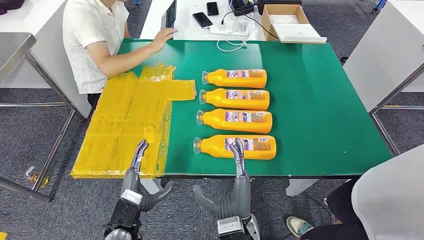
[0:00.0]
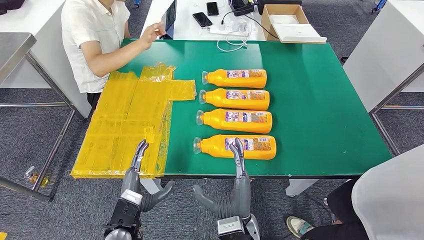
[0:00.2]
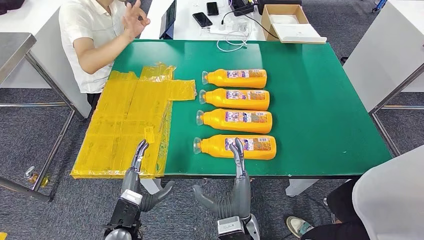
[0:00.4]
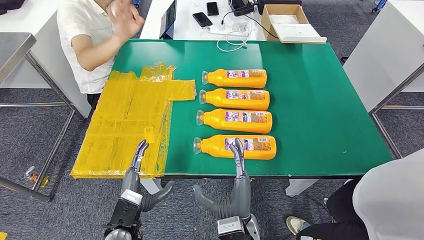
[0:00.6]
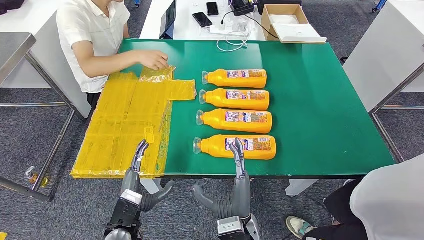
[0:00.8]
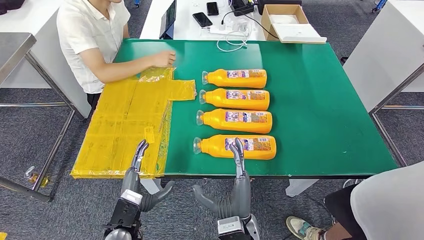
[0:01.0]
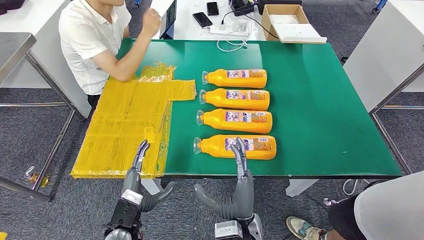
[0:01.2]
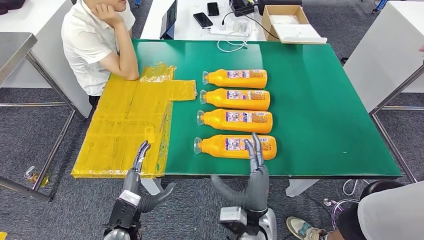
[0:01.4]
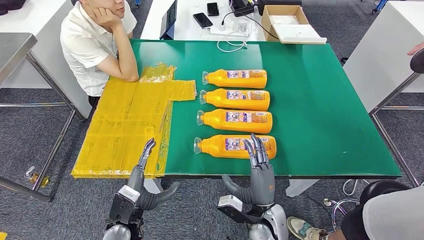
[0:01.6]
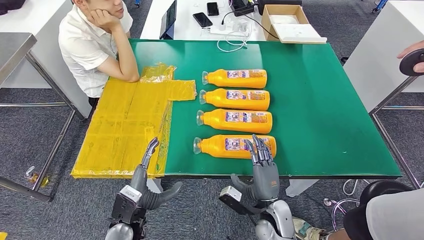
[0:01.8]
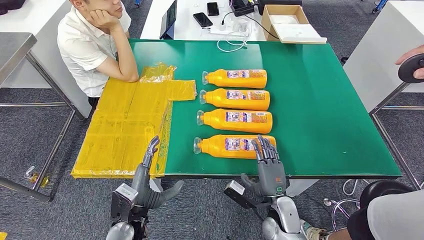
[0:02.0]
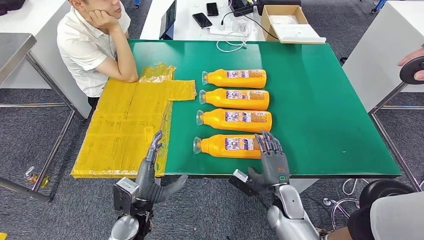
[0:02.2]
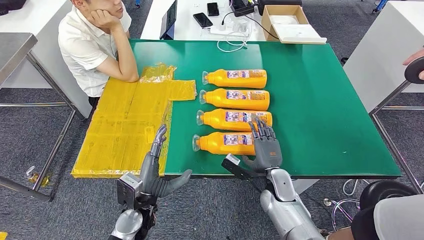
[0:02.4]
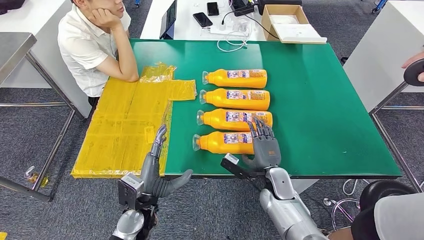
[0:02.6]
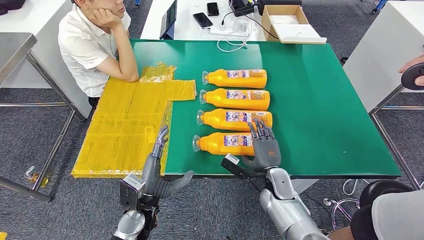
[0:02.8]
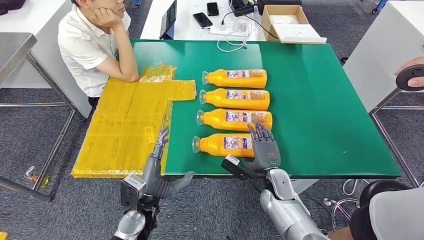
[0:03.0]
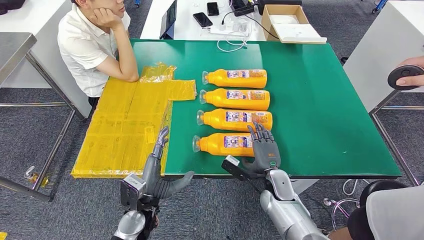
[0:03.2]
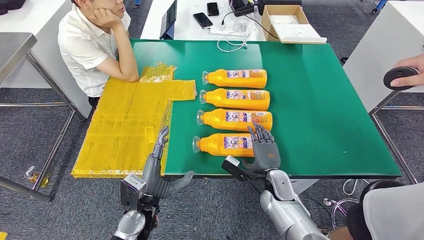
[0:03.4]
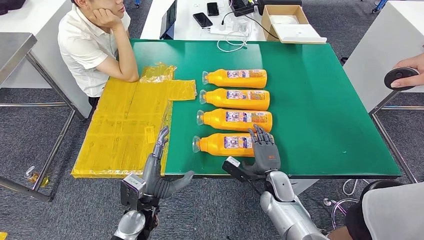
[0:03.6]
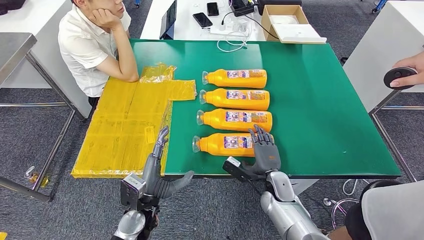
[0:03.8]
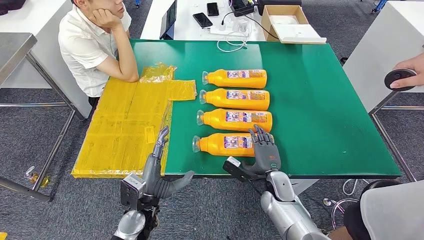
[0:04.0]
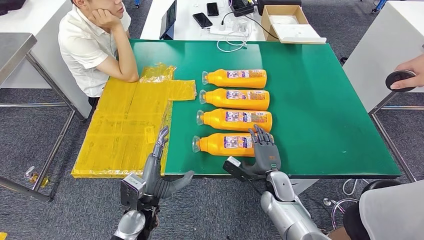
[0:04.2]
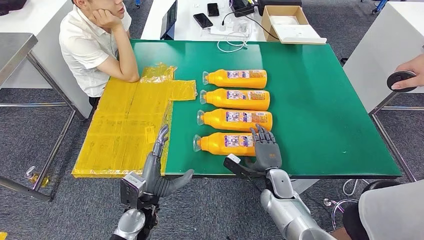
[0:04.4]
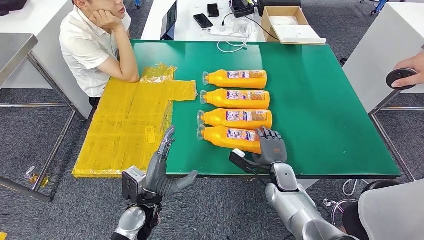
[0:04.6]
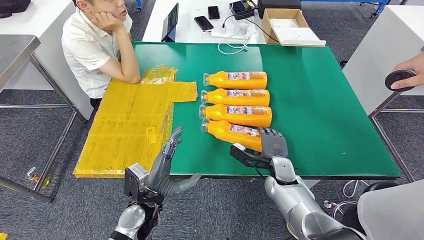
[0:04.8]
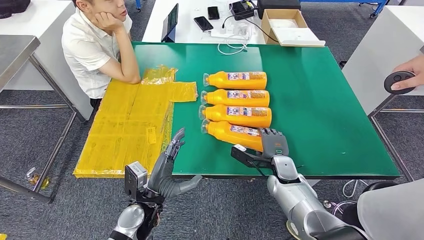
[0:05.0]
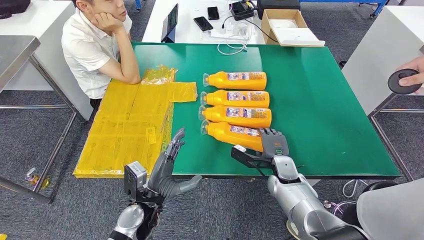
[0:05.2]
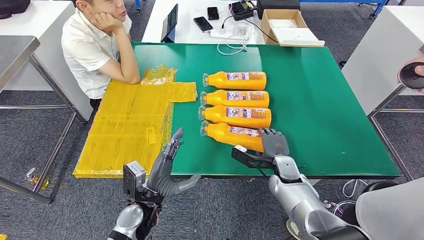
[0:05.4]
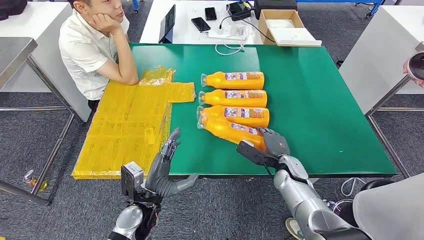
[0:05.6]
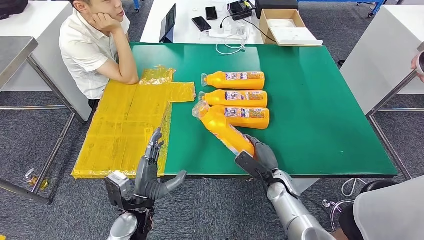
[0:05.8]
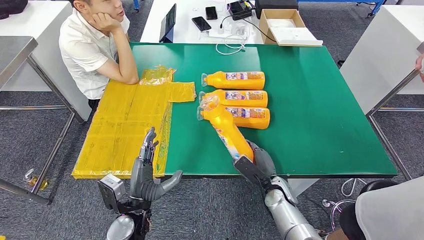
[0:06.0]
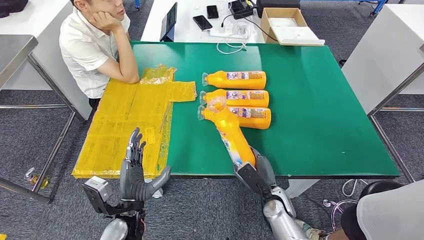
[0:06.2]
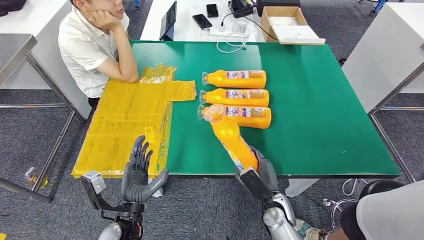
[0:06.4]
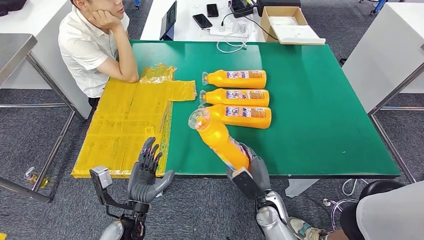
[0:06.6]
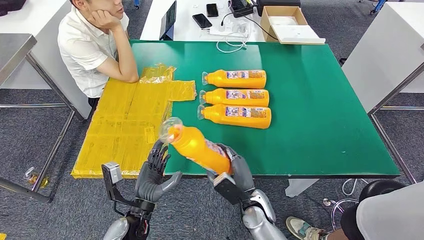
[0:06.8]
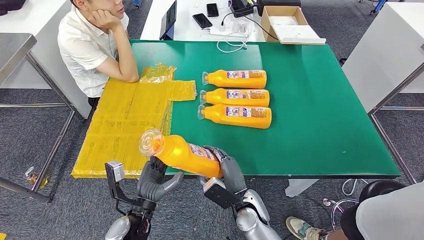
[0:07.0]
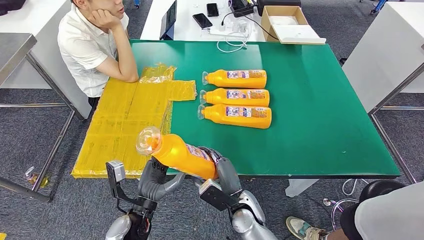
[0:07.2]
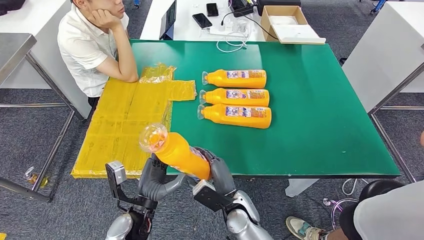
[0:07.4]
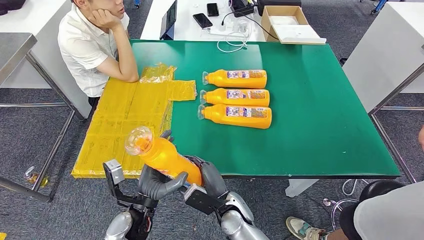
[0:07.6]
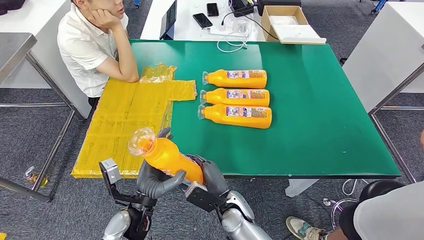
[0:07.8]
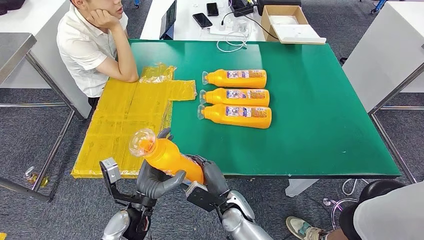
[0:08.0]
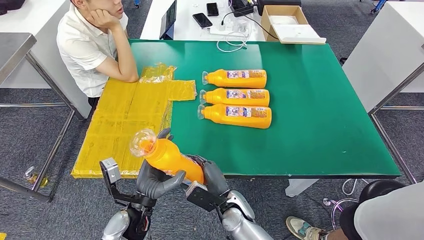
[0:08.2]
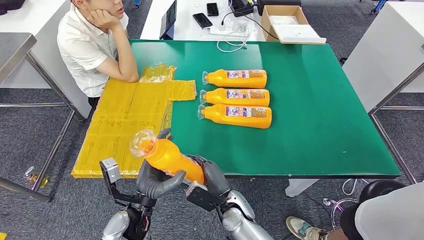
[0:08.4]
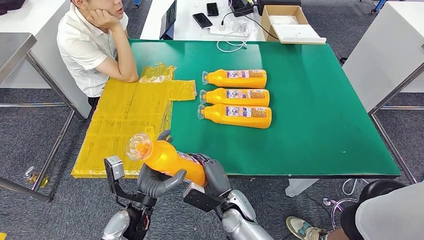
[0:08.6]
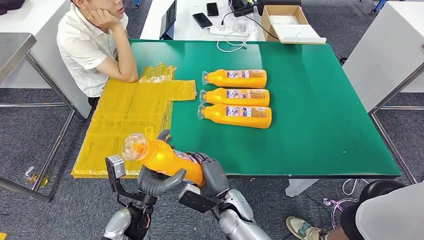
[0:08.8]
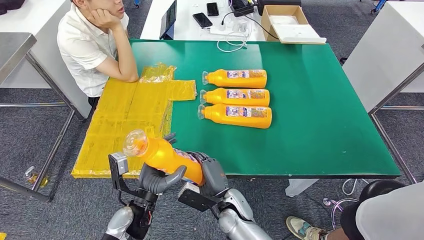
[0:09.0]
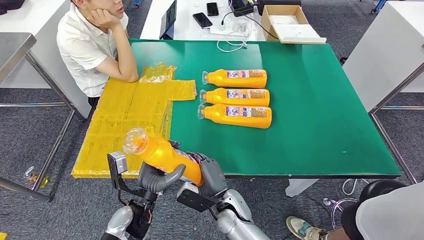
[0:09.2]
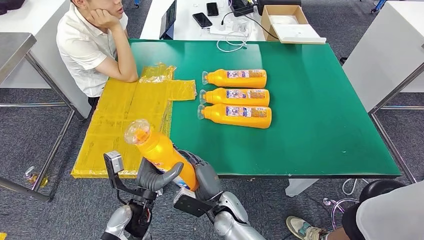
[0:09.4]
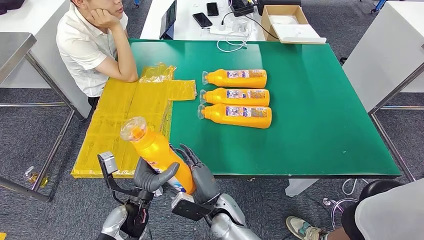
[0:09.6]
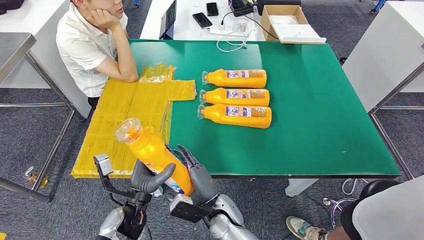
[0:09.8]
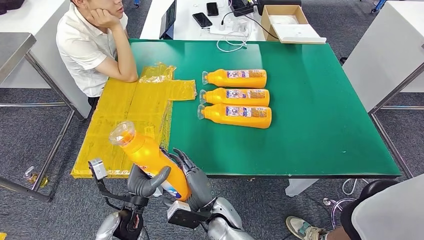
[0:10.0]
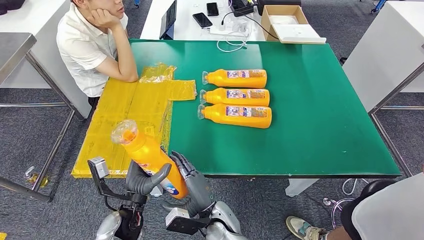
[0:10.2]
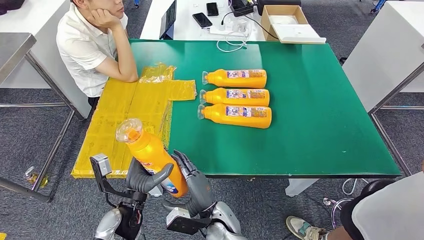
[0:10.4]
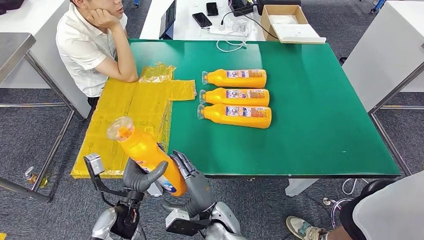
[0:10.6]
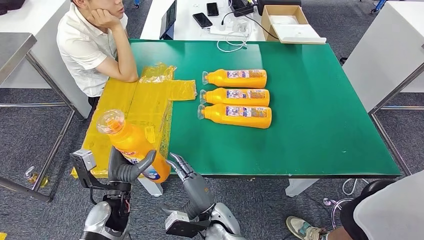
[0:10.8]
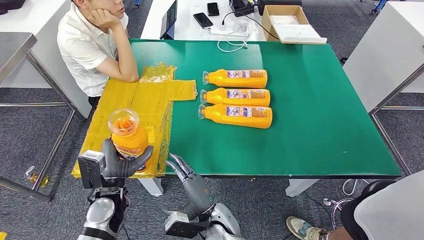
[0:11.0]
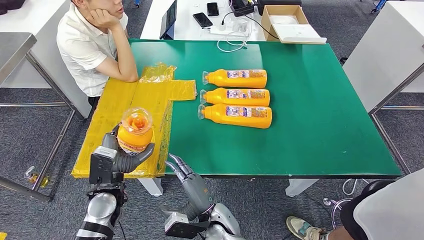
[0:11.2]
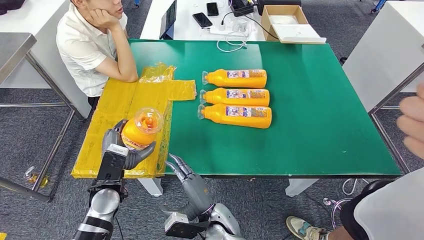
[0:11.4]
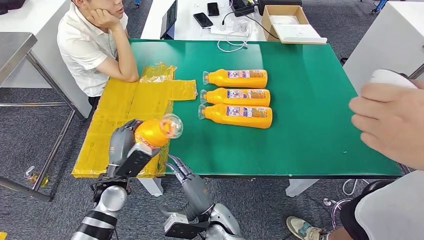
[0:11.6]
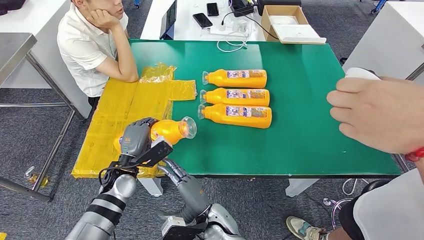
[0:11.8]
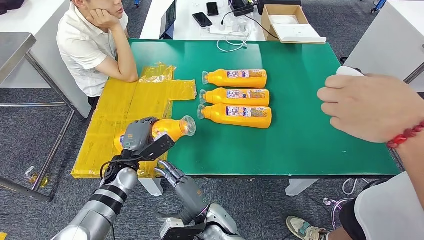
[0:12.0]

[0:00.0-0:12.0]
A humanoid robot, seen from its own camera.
Step, 0:00.0 to 0:06.4: Take the bottle from the table.
0:01.6 to 0:03.0: The right hand travels forward and to the right by approximately 10 cm.
0:03.0 to 0:04.4: The hands move only a little.
0:07.6 to 0:09.0: The hands make only small movements.
0:09.0 to 0:10.4: The right hand ends up about 5 cm from where it was.
0:10.4 to 0:12.0: The left hand is displaced forward by some 10 cm.

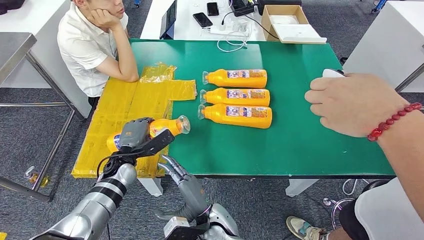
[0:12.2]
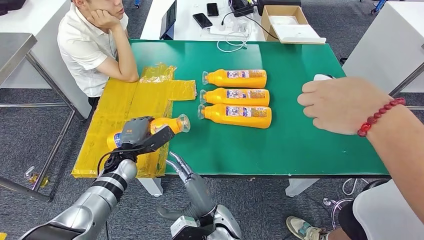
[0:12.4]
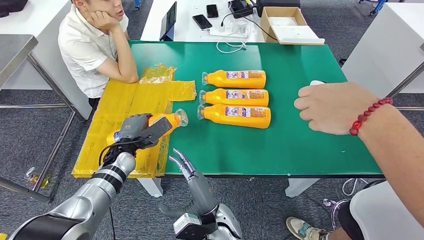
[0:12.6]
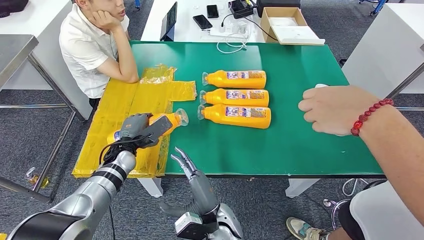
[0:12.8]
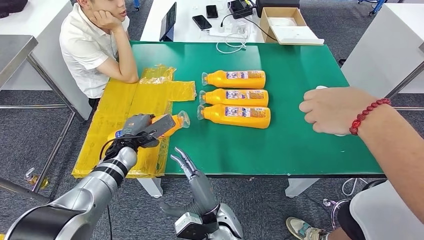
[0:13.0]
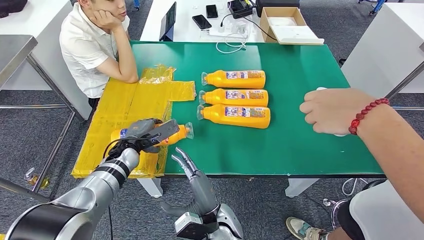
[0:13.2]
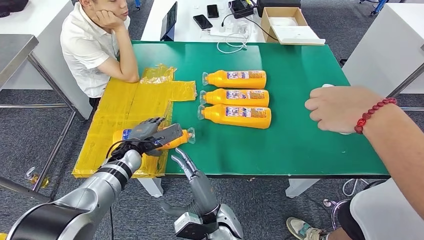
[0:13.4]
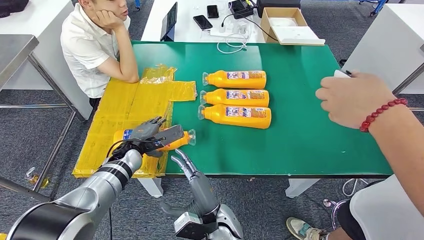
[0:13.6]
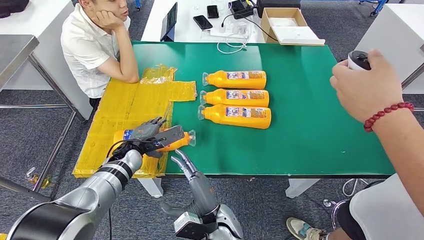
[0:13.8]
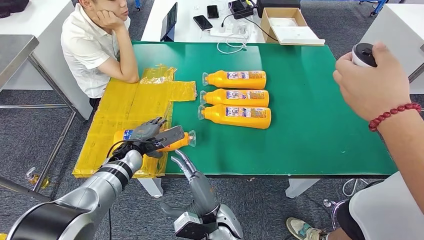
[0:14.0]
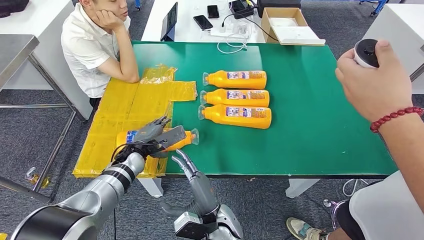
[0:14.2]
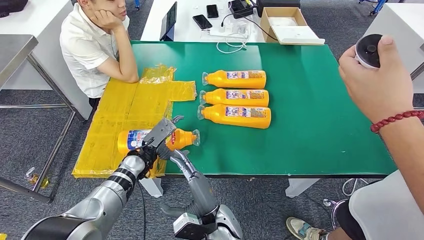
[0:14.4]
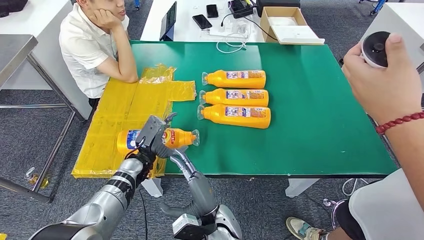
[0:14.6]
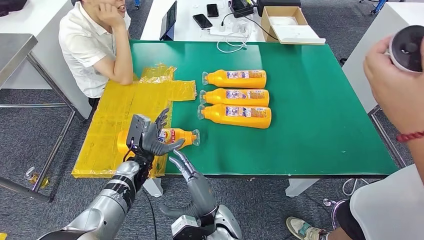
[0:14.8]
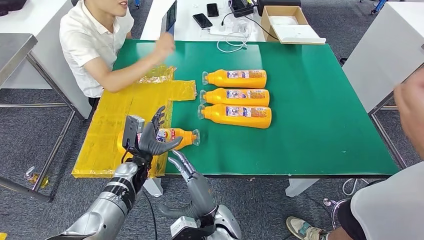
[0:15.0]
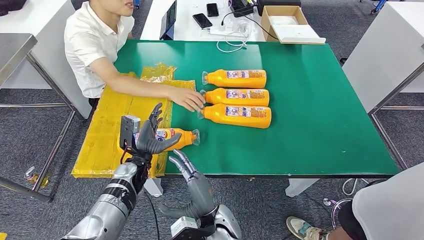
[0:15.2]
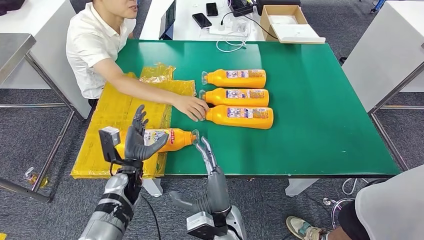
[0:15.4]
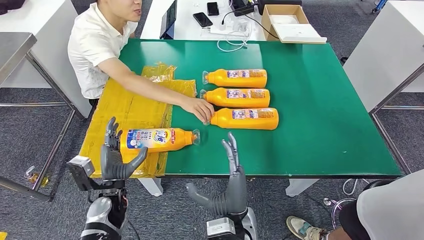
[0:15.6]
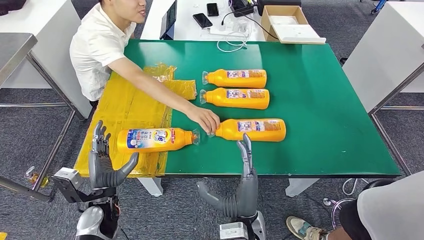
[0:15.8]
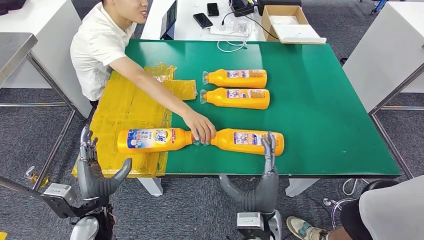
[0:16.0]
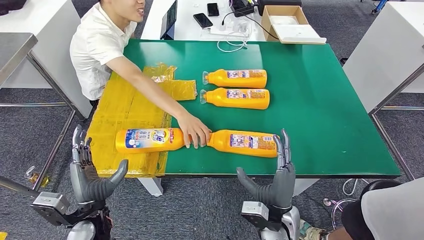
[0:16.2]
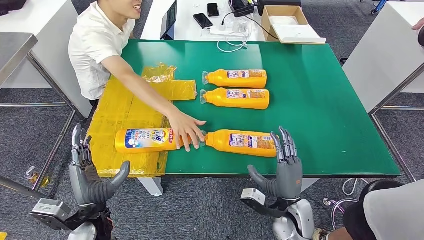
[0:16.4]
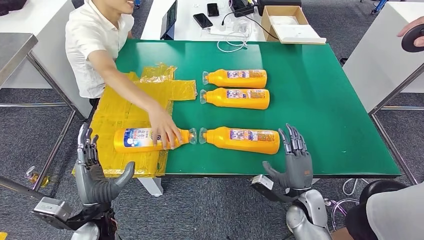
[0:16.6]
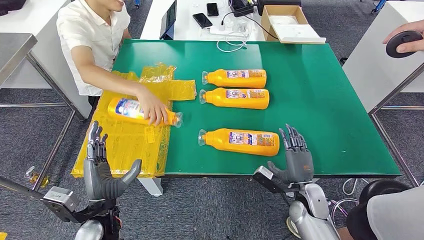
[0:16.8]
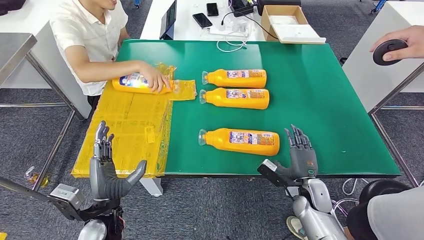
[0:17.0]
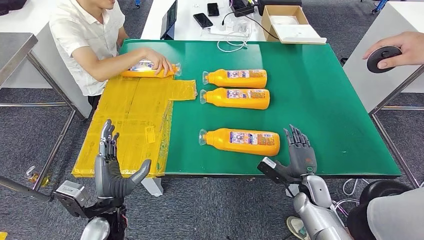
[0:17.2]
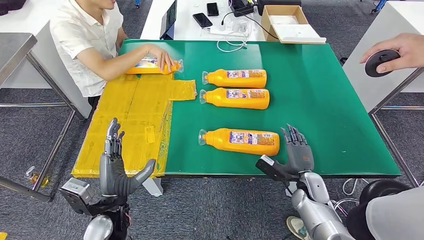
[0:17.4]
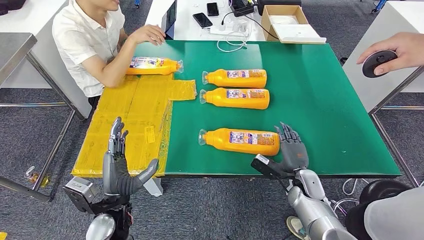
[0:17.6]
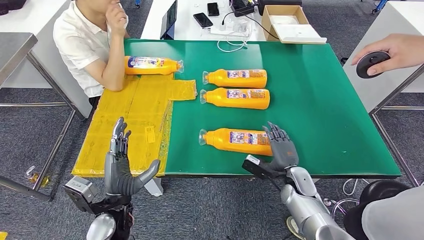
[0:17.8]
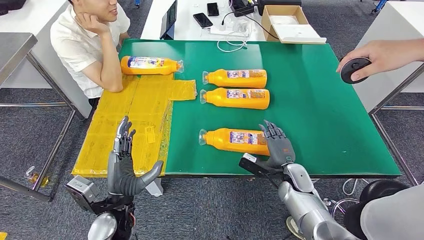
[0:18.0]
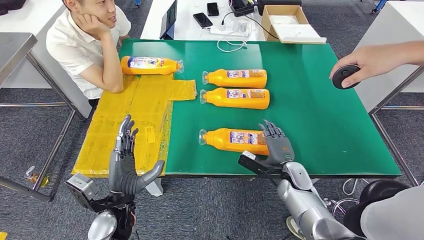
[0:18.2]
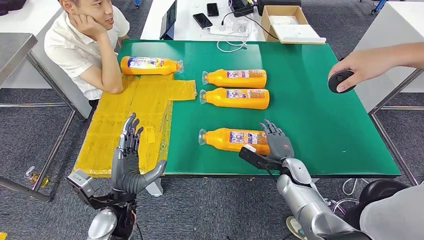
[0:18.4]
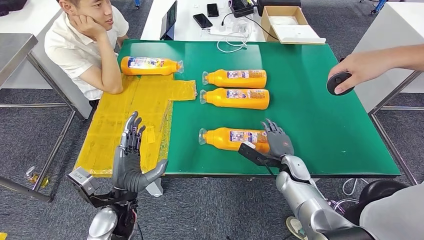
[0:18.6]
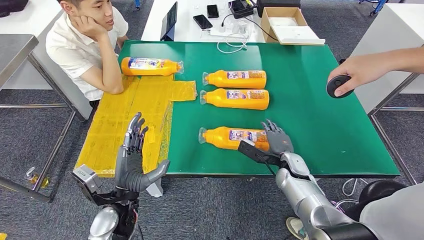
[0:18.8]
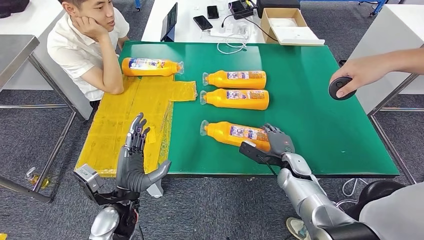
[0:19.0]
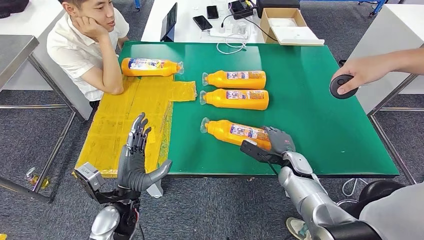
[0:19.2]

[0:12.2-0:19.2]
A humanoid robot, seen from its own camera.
Step, 0:12.2 to 0:15.8: Flip the bottle to face forward.
